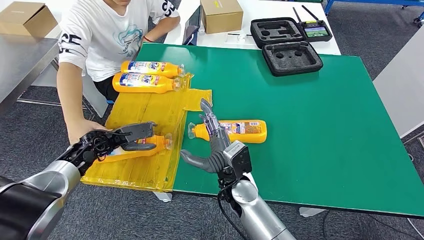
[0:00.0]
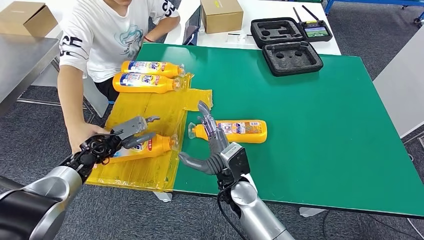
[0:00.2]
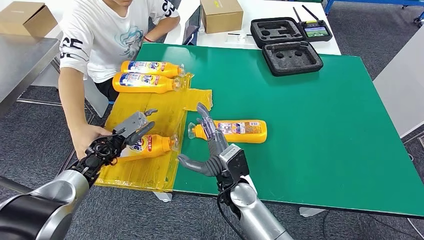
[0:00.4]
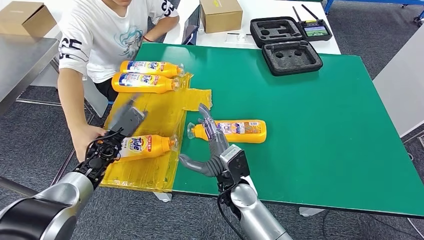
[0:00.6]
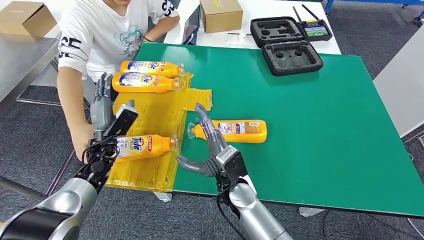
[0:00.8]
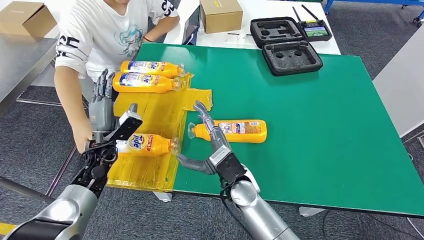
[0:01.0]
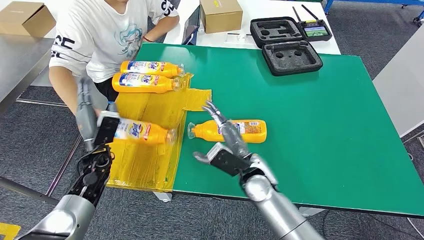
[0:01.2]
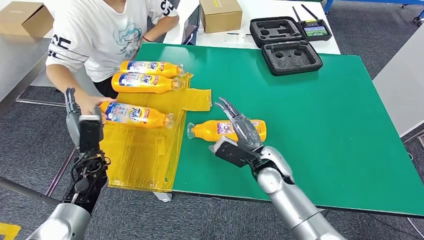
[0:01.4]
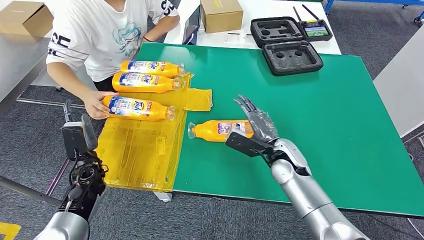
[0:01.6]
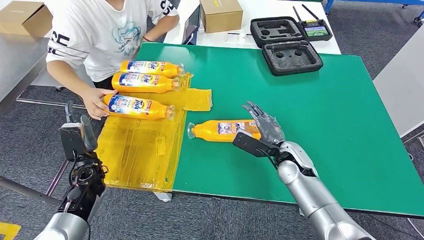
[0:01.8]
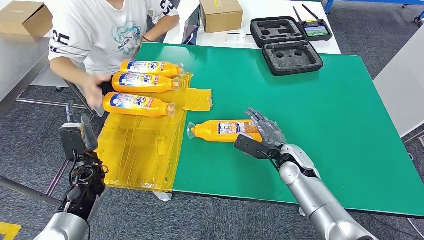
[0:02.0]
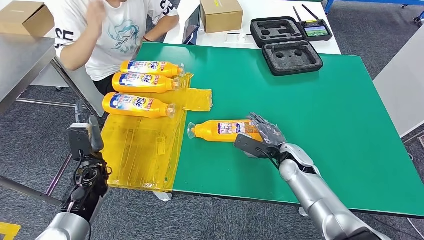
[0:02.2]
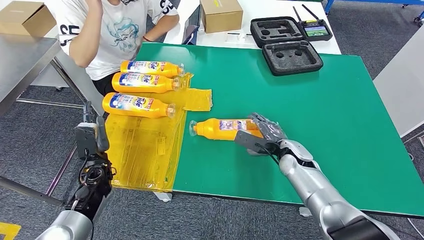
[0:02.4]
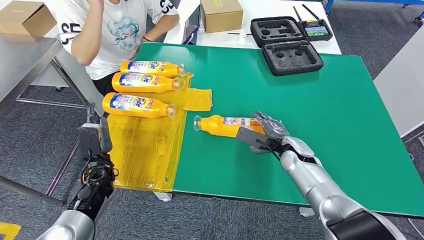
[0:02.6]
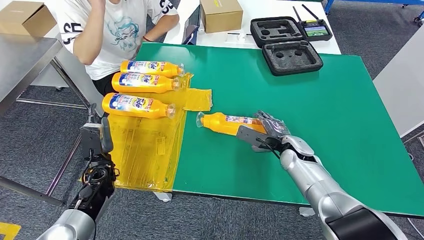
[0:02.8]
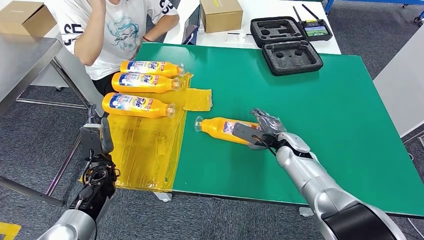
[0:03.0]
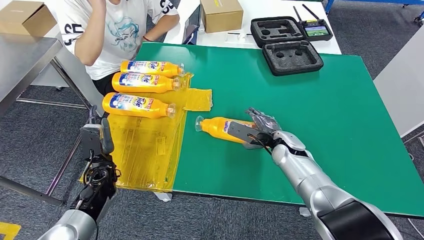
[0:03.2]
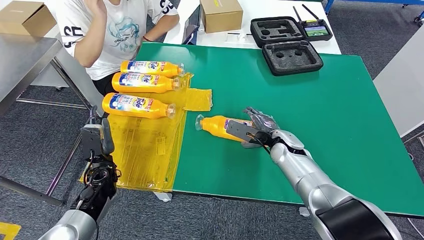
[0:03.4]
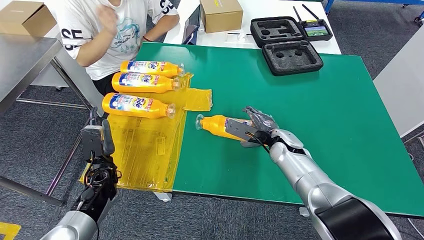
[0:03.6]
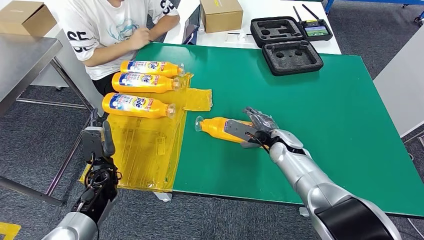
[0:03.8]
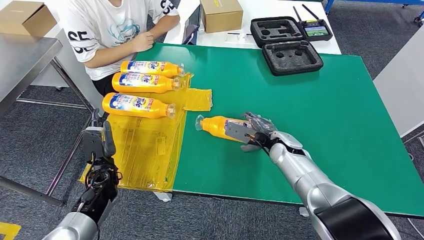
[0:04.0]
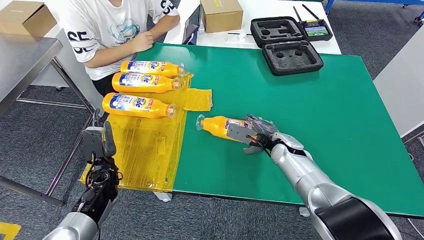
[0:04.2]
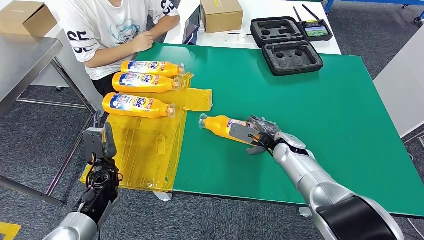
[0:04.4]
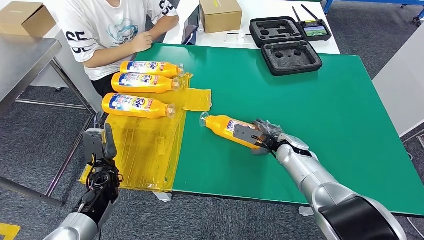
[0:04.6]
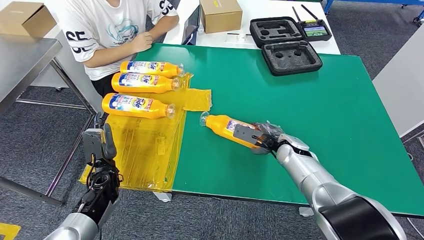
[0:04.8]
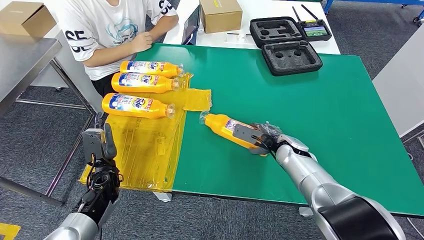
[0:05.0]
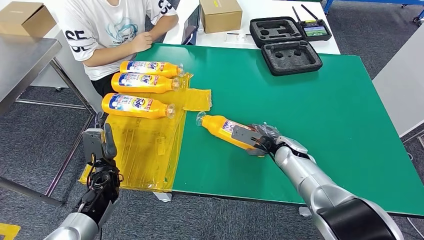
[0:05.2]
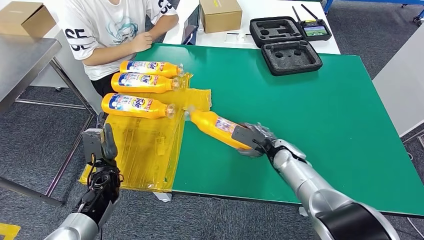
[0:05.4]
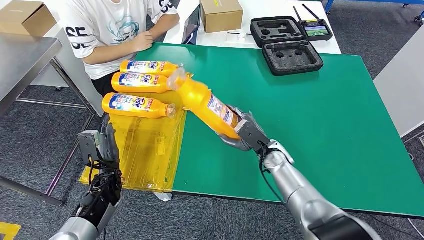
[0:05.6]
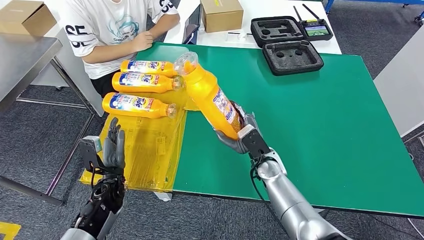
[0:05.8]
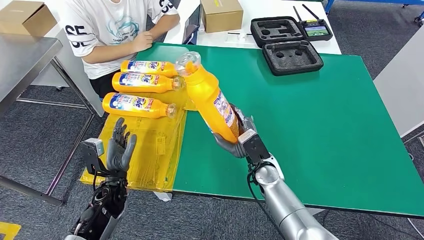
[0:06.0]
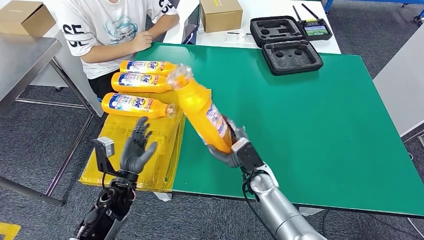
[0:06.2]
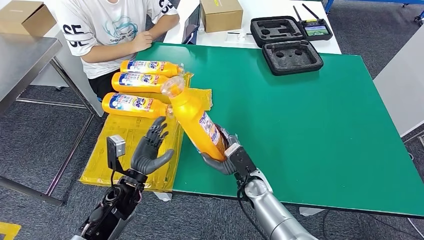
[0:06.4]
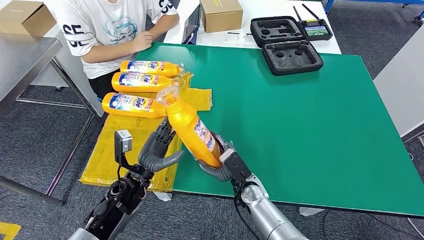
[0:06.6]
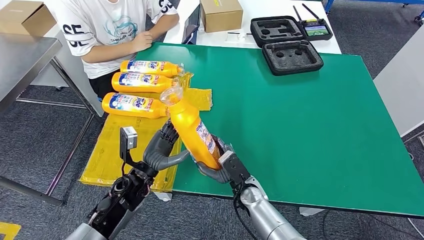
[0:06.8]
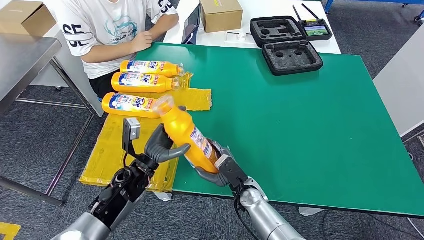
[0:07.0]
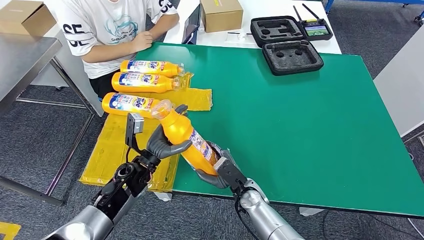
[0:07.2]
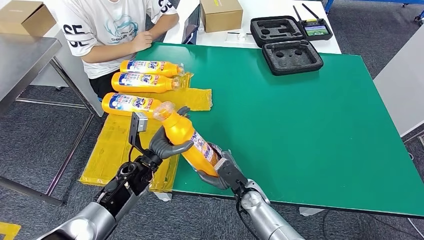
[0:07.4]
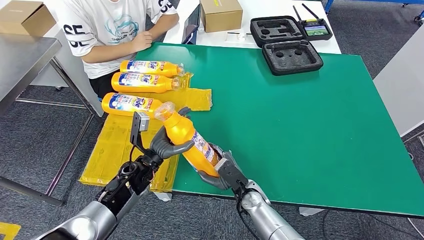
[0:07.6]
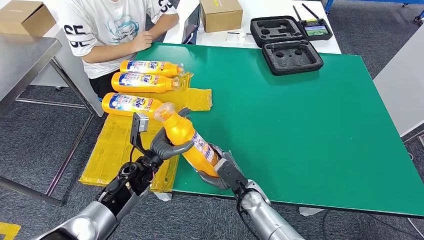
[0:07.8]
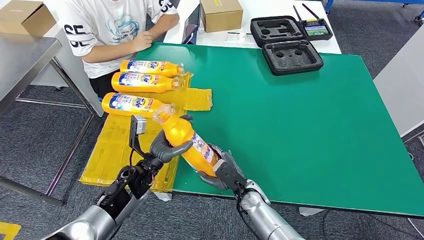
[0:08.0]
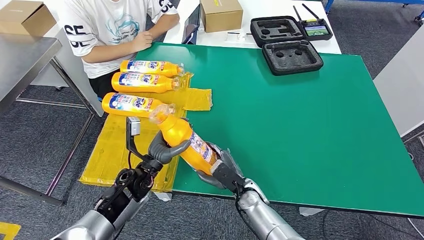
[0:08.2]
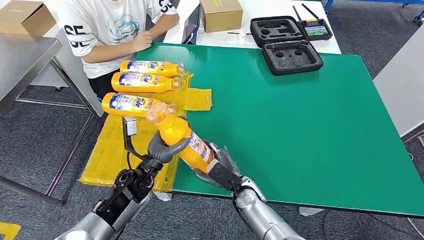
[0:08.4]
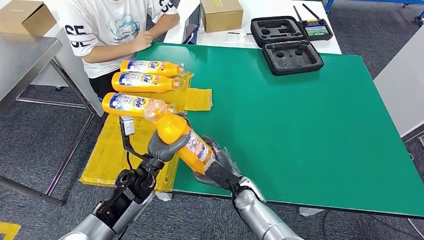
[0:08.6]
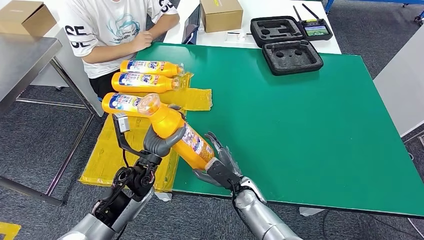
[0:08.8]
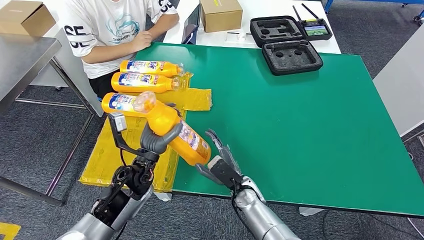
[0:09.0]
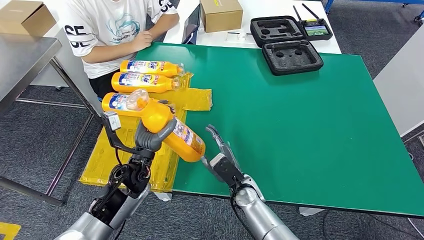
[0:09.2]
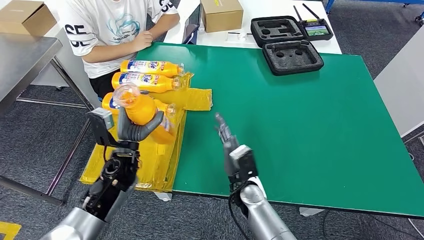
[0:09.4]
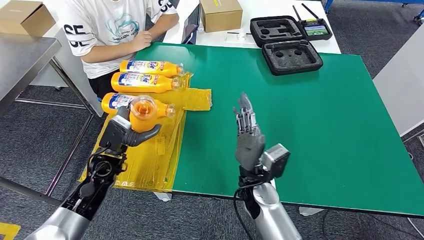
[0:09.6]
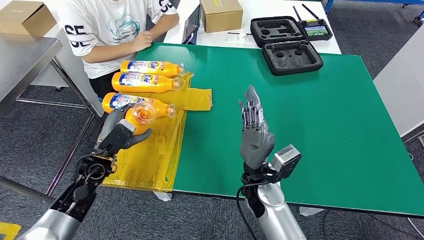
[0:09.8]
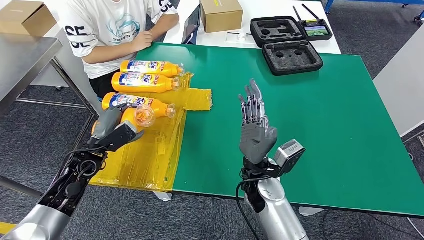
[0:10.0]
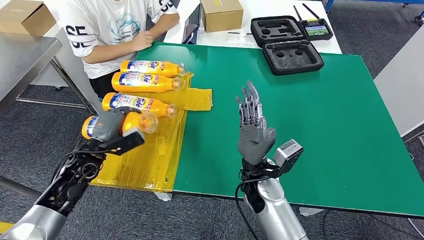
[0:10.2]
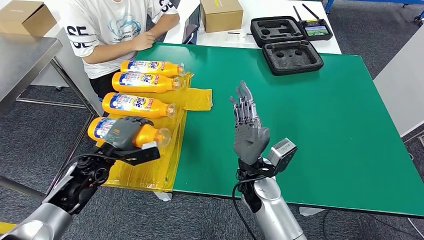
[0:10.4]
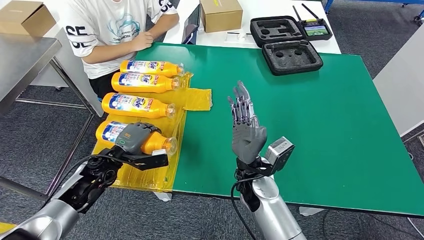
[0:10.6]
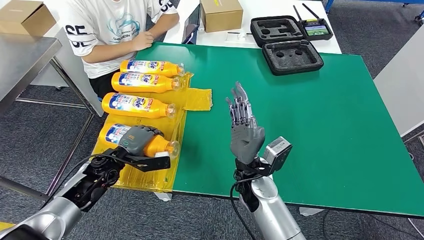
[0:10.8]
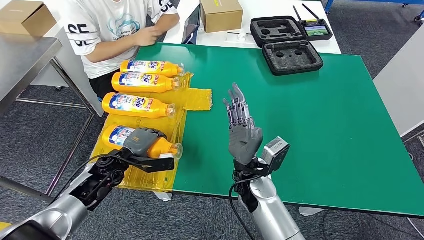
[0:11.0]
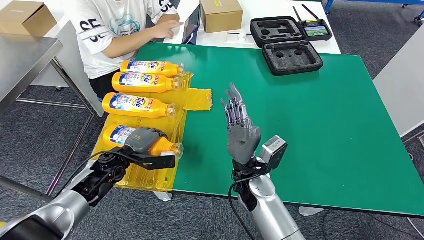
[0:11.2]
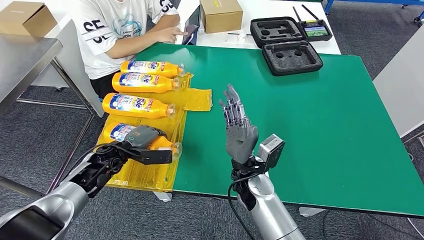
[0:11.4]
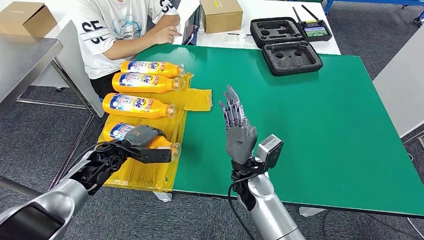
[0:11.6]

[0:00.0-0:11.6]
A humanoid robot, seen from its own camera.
Step, 0:00.0 to 0:07.6: Pick up the fast-moving consumer goods bottle from the table.
Step, 0:08.0 to 0:11.6: Flip the fast-moving consumer goods bottle to the front side.
0:02.8 to 0:04.4: The hands move only a little.
0:04.4 to 0:05.8: The right hand goes some 10 cm to the left and backward.
0:05.8 to 0:07.2: The right hand travels downward and backward by roughly 10 cm; the left hand is displaced to the right and upward by some 10 cm.
0:07.2 to 0:08.8: There are only small adjustments of the hands.
0:08.8 to 0:10.2: The left hand moves to the left, about 15 cm. The right hand shifts about 10 cm upward.
